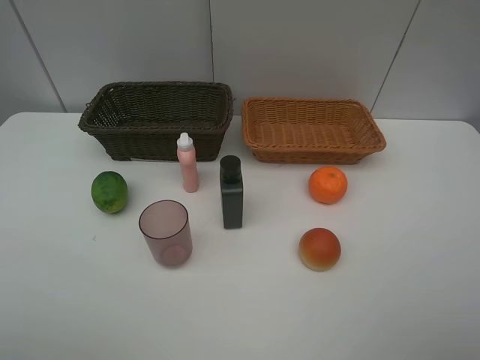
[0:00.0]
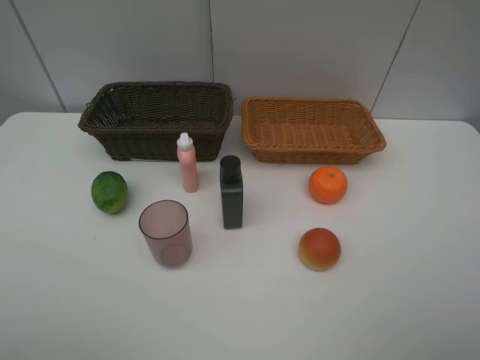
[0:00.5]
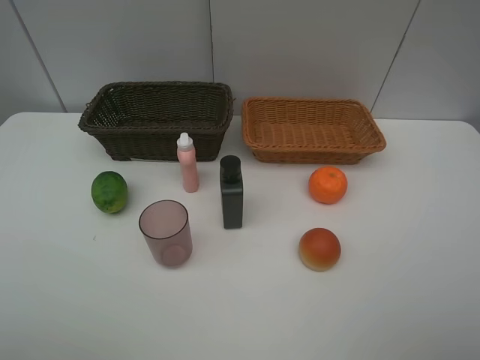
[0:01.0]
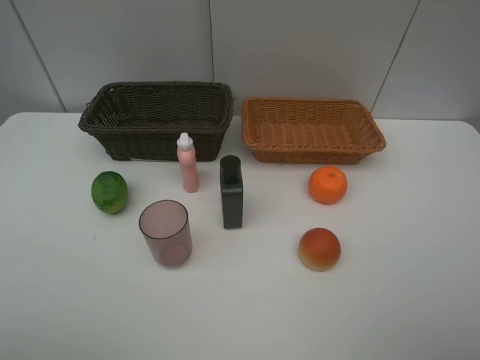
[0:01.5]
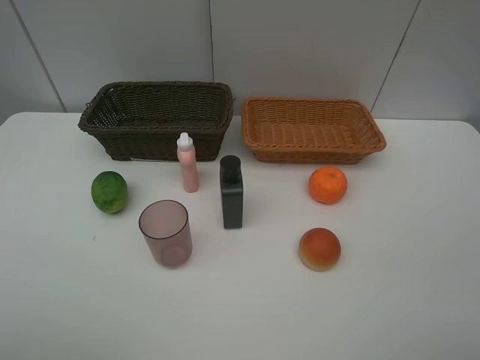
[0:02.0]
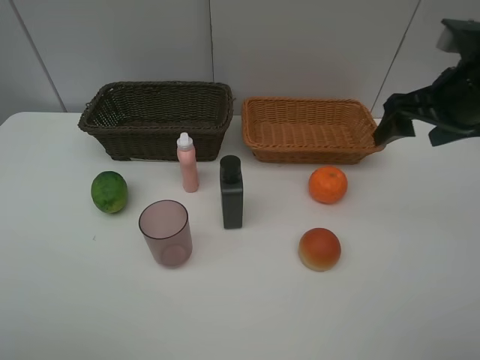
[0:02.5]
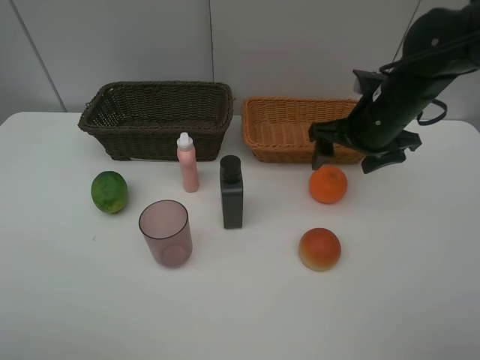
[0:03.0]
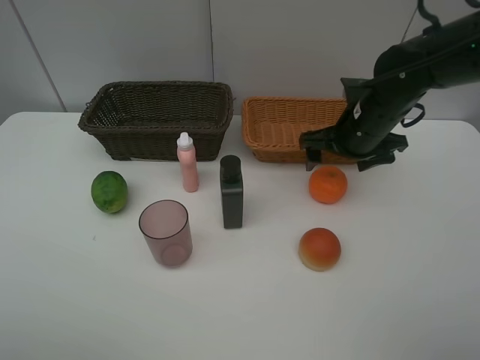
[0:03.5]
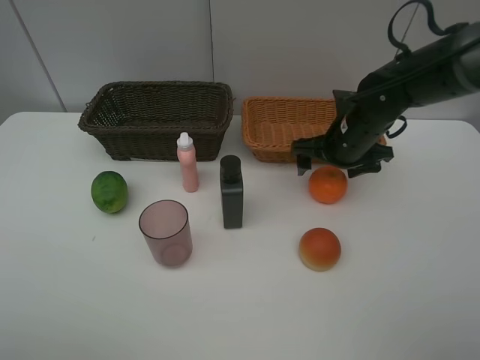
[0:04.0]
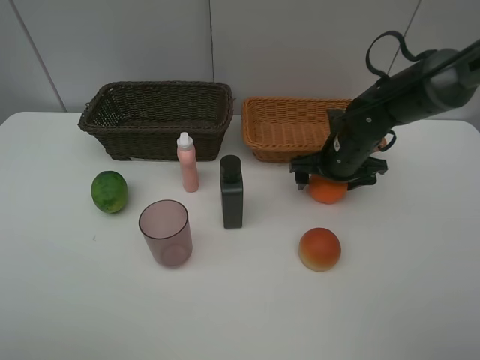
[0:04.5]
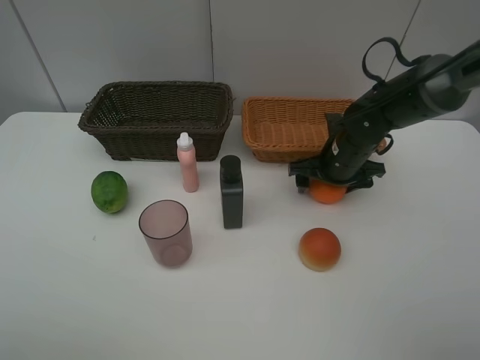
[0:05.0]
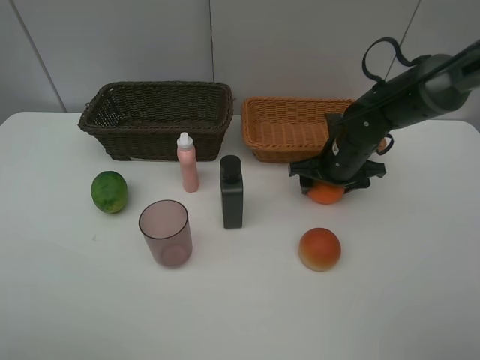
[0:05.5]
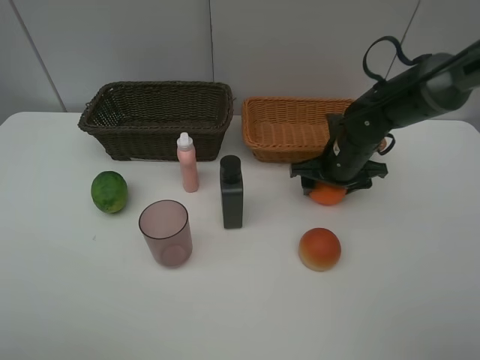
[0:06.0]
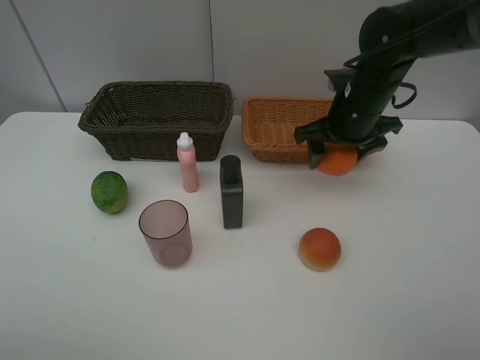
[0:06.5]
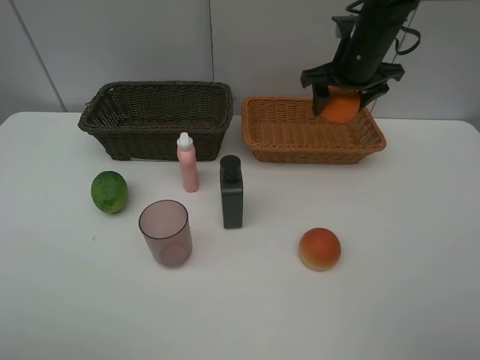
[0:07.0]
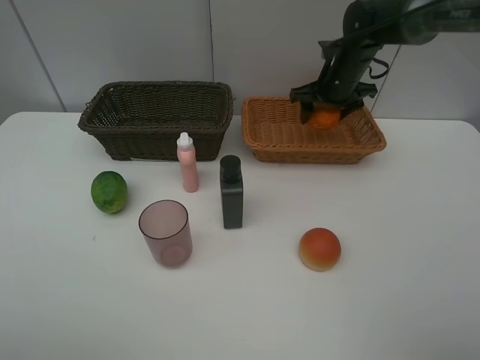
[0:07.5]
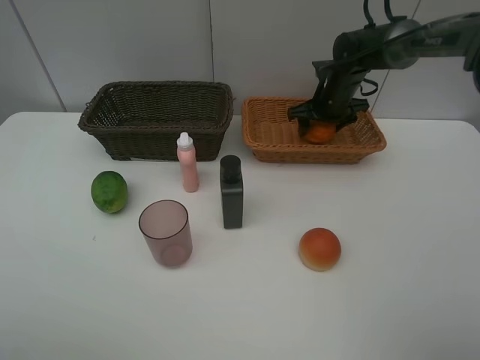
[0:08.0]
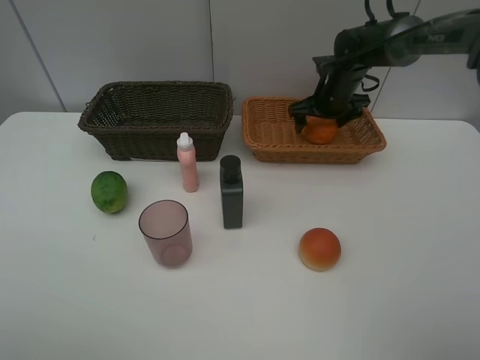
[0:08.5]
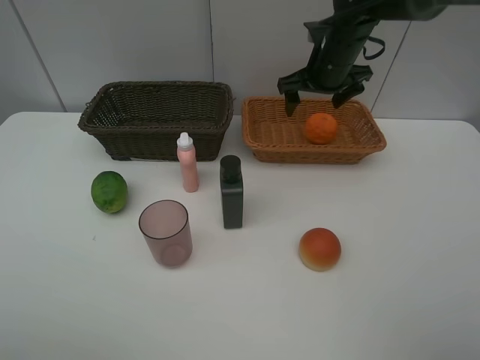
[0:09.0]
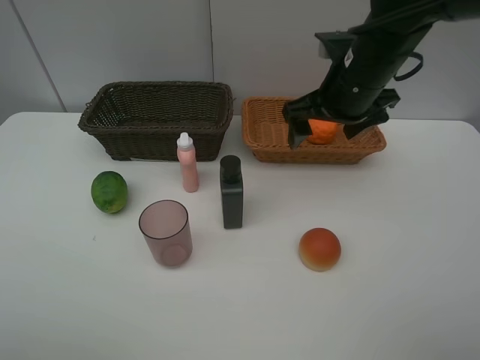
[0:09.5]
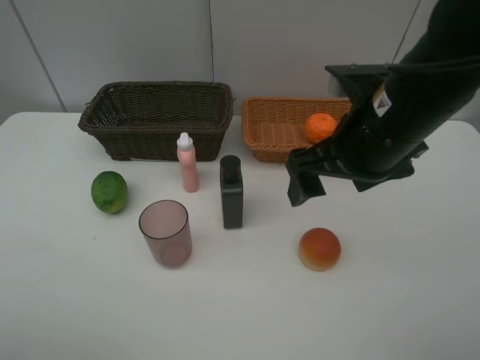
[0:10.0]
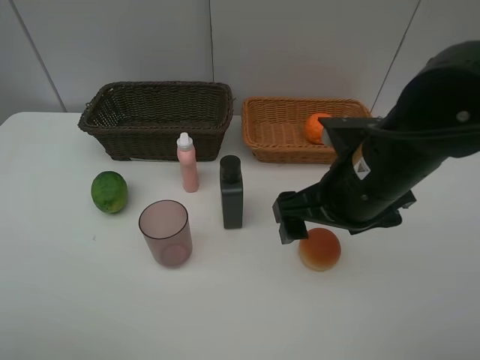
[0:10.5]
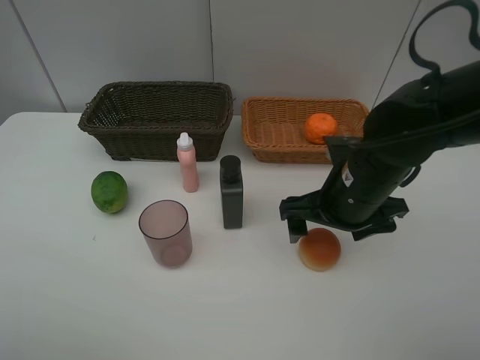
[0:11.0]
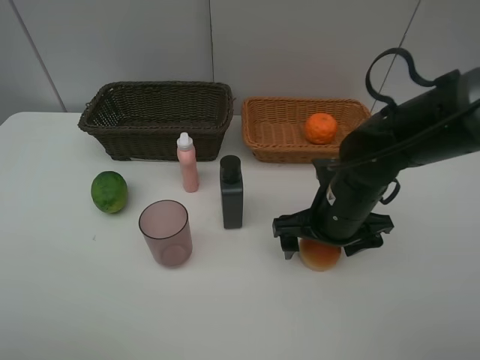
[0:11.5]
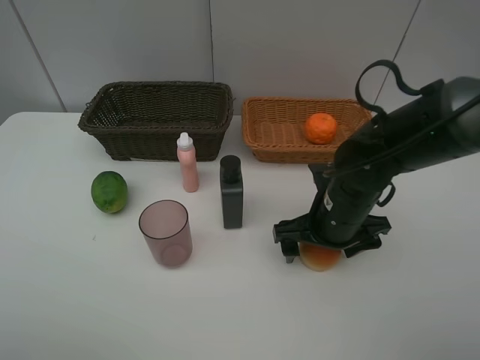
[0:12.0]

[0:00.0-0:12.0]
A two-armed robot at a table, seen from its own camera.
Task of the whole recording: place multiple objects separately in different baskets.
0:02.0 to 0:04.0: The right gripper shifts about 30 cm forward, downward and to the left.
0:04.0 to 0:06.0: The grippers stay close to where they were, moving slightly.
0:06.0 to 0:08.0: The right gripper moves forward, some 15 cm.
0:08.0 to 0:10.0: The right gripper goes some 30 cm backward, and opens.
0:10.0 to 0:12.0: The right gripper moves downward, approximately 15 cm.

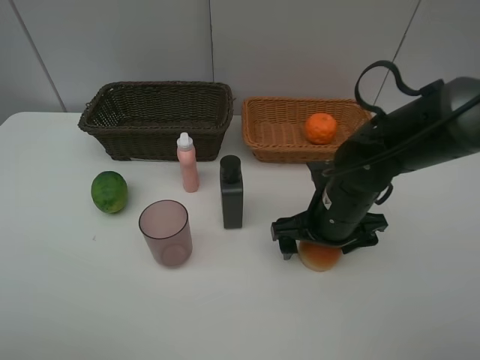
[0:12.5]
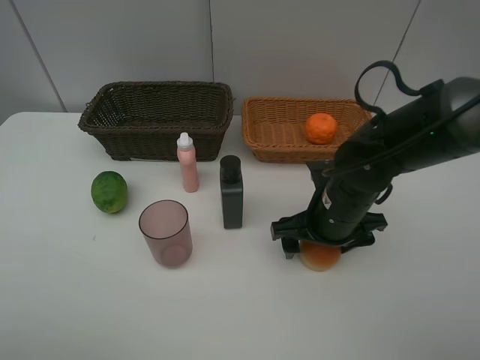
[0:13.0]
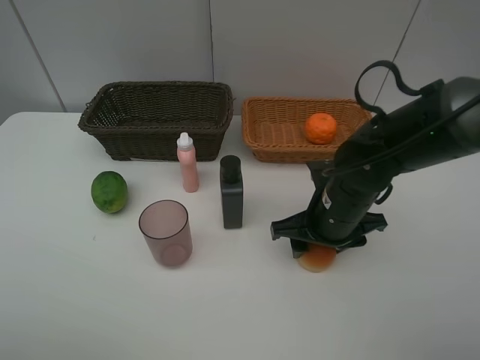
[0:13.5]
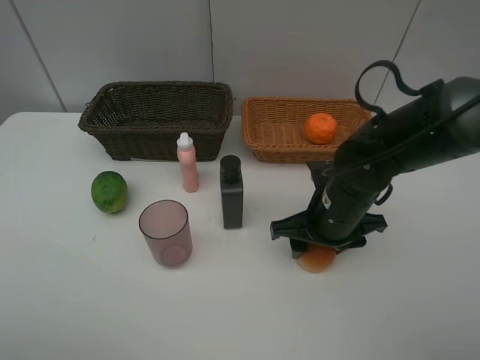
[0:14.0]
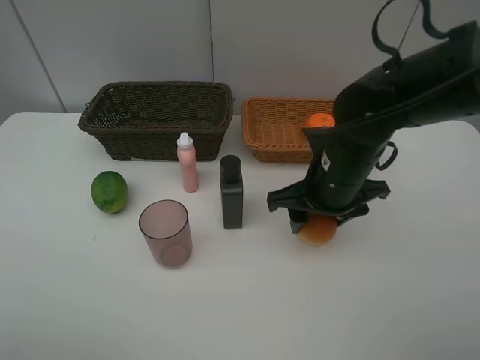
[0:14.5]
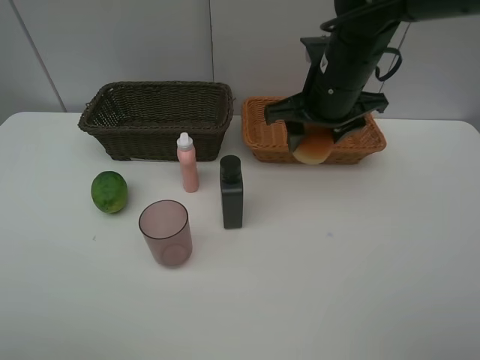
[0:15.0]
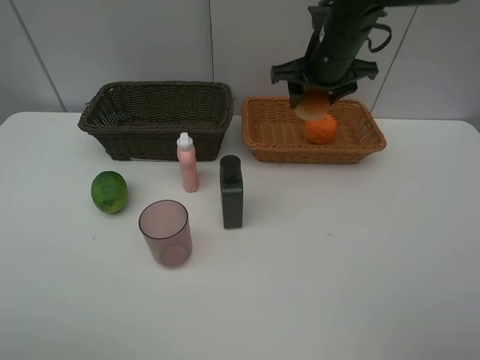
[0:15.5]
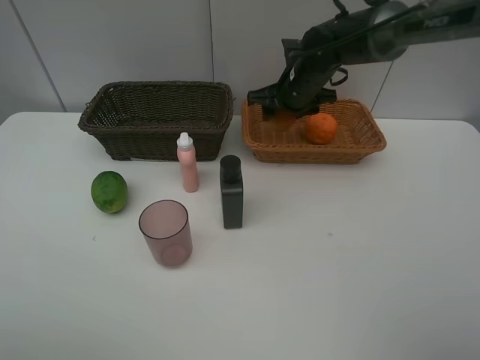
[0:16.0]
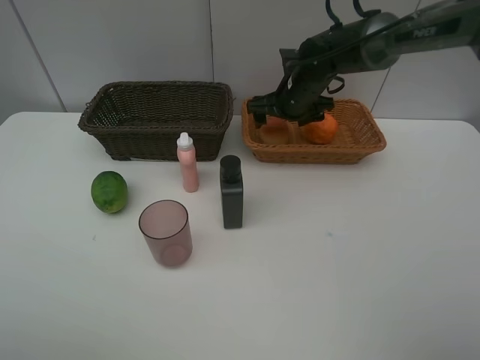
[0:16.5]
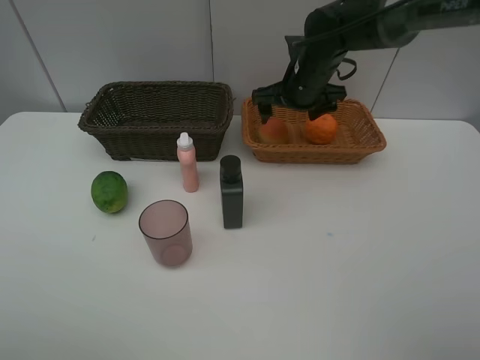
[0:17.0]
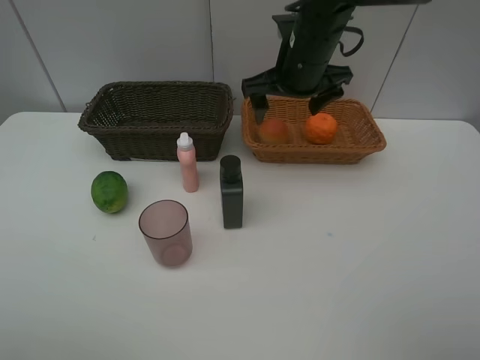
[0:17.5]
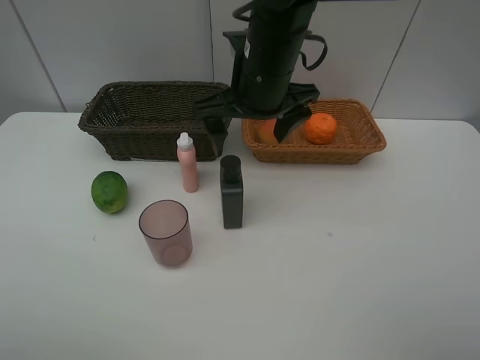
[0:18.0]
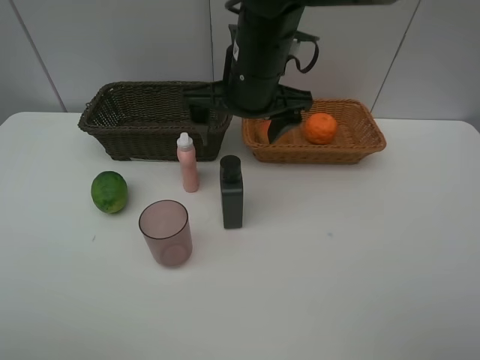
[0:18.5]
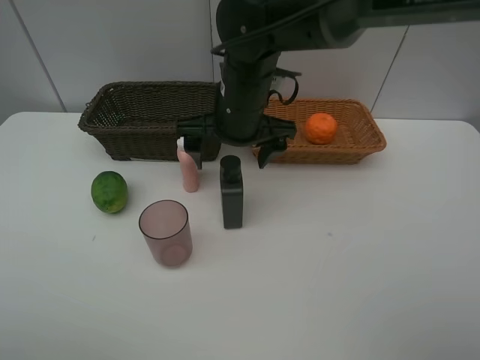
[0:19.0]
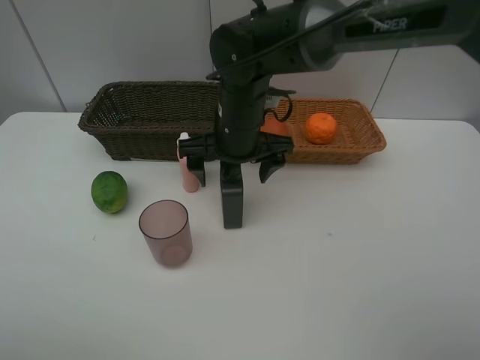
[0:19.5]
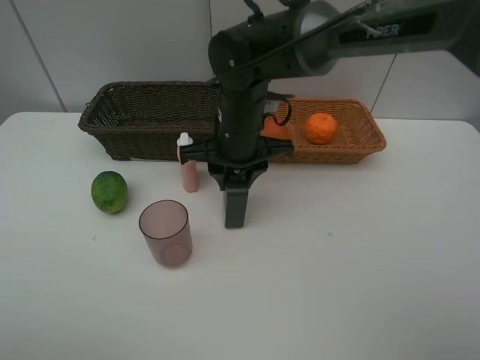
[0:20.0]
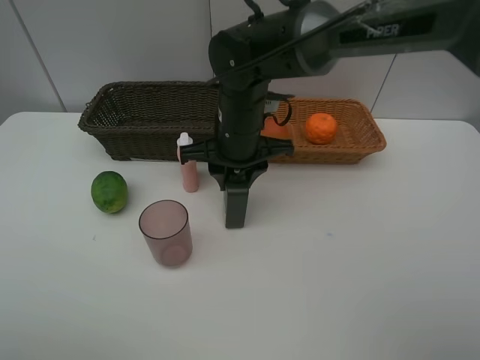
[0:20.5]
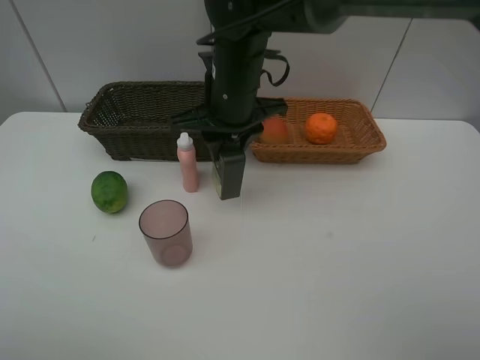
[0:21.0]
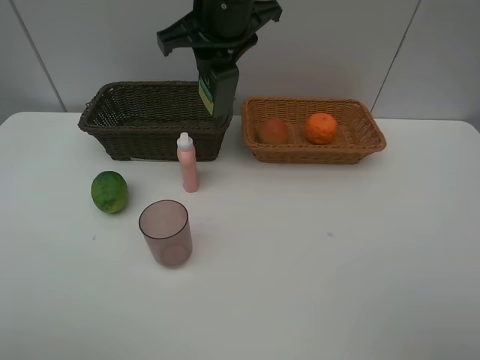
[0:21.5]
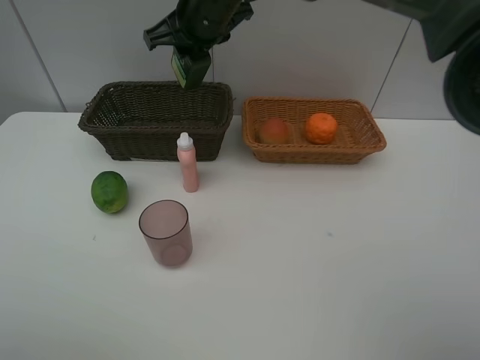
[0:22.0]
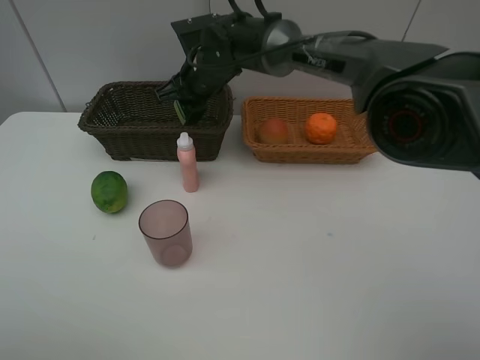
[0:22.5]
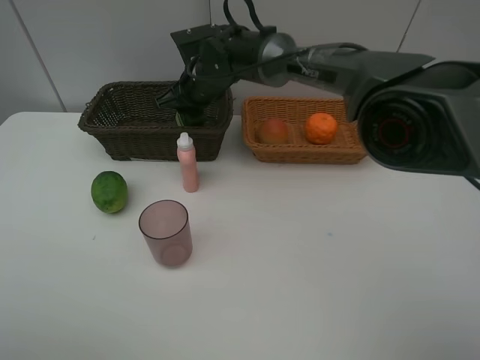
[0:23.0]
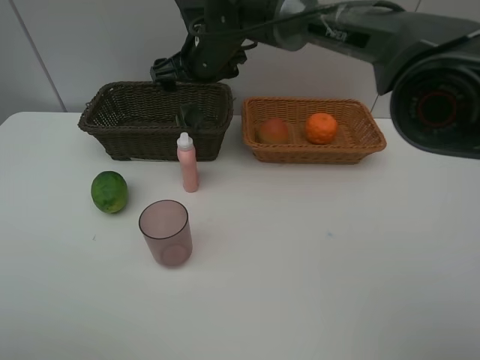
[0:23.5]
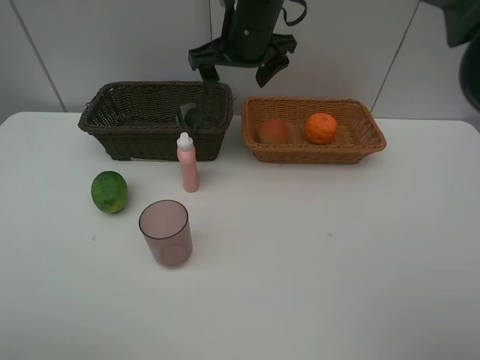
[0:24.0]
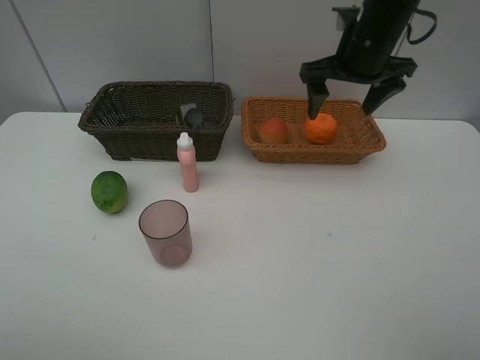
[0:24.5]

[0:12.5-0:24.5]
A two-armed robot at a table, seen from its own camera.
Task of the whole recording: place multiple objects separately in different baskets.
0:12.5 to 0:14.5: The right gripper shifts roughly 5 cm upward, and closes its fingers.
0:14.5 to 0:16.5: The right gripper moves forward, approximately 20 cm, and opens.
0:16.5 to 0:18.5: The right gripper goes roughly 20 cm backward, upward and to the left.
0:18.5 to 0:20.5: The right gripper travels downward by some 10 cm, and closes.
0:20.5 to 0:22.5: The right gripper goes some 10 cm forward, and travels upward and back again, about 15 cm each way.
0:22.5 to 0:24.5: The right gripper is displaced to the right by about 25 cm, and opens up.

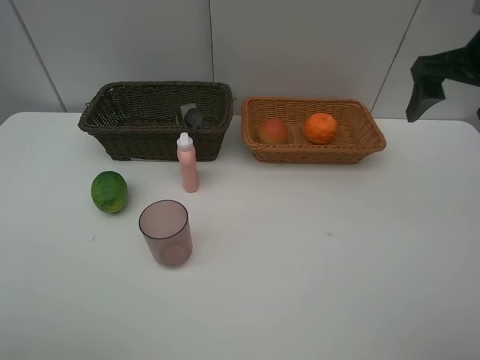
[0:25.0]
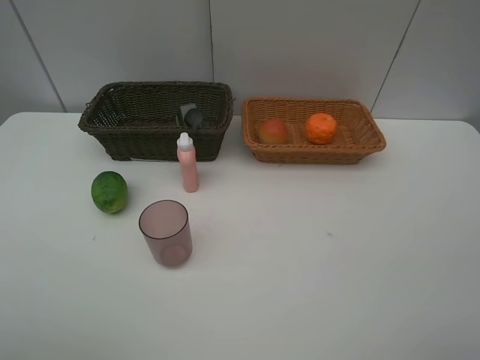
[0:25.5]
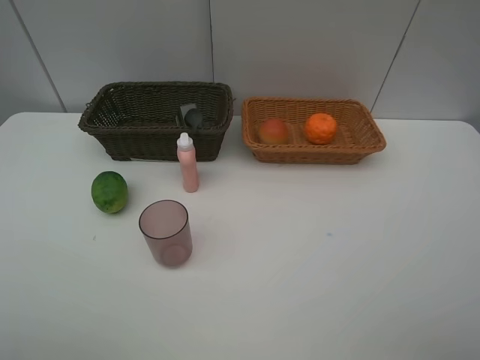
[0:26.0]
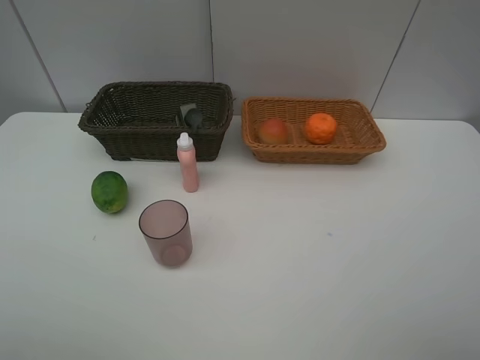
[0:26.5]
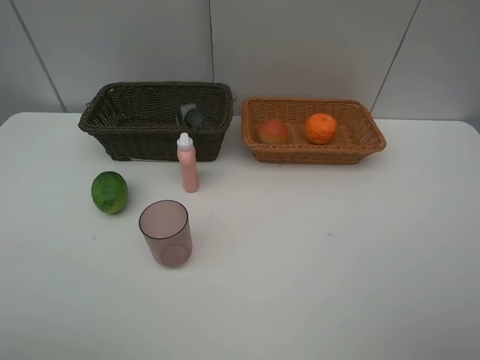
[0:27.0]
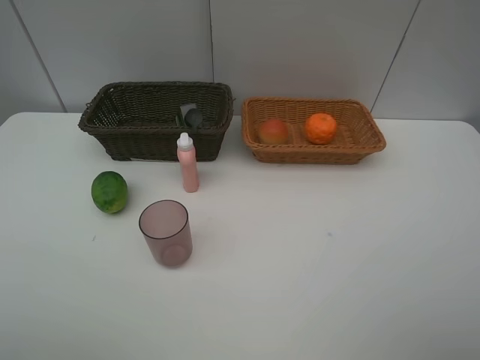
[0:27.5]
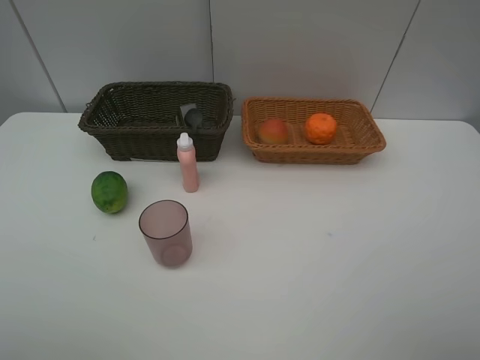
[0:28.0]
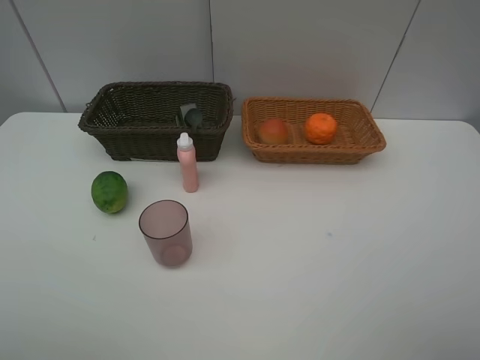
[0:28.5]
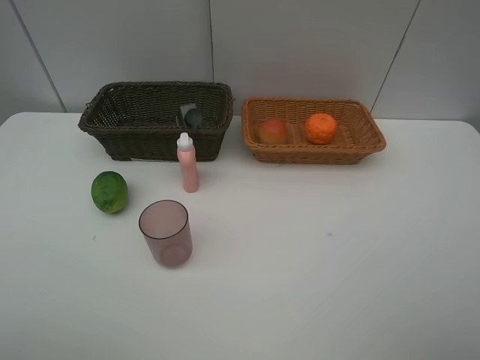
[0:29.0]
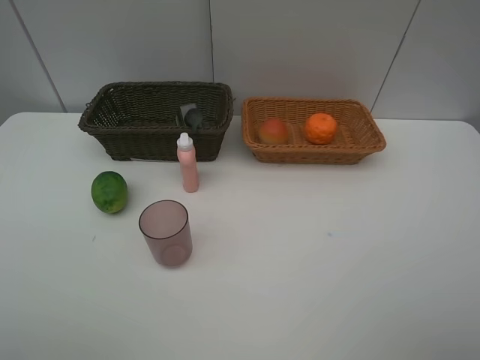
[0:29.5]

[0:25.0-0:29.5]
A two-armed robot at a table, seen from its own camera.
Task of the whole recording: place multiple objects separately in different baskets.
0:25.0 to 0:27.0: The right gripper shifts approximately 25 cm backward.
